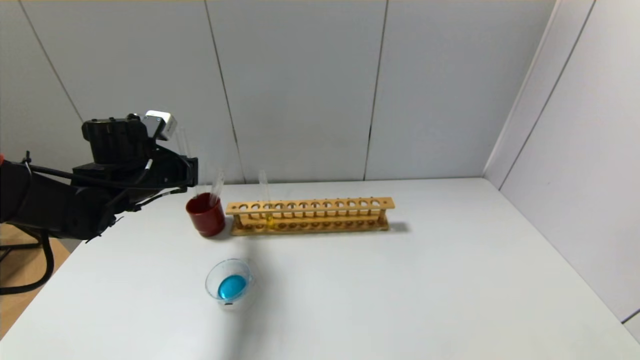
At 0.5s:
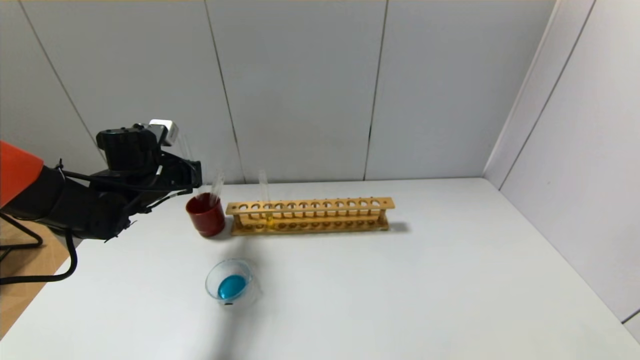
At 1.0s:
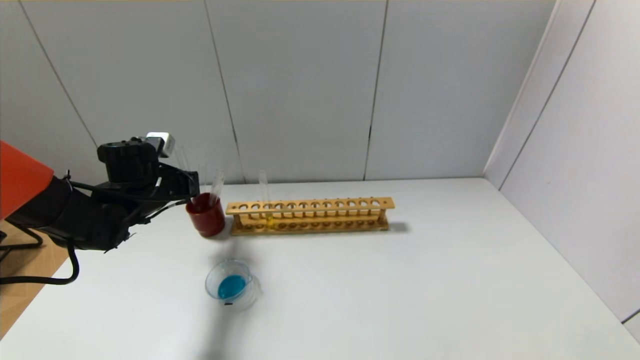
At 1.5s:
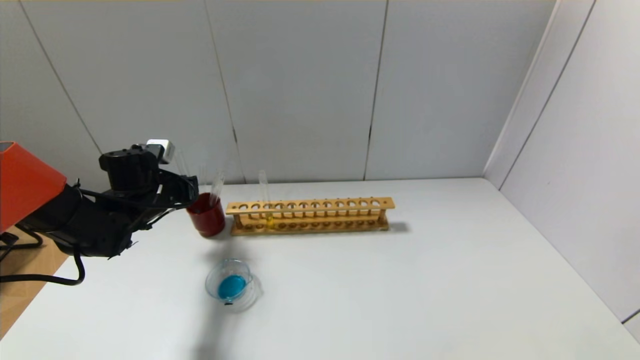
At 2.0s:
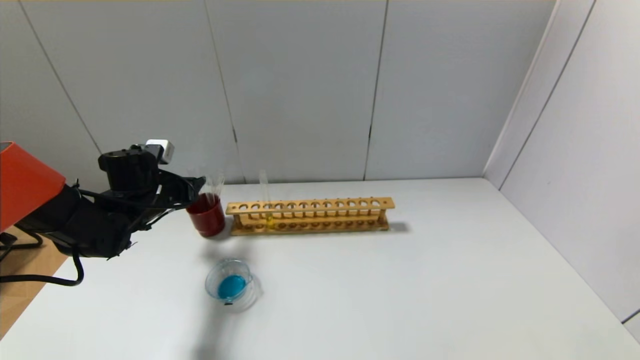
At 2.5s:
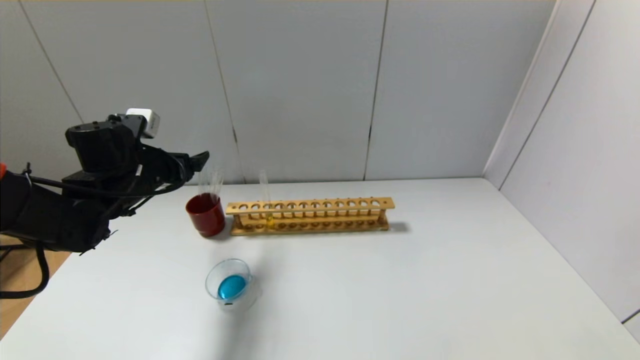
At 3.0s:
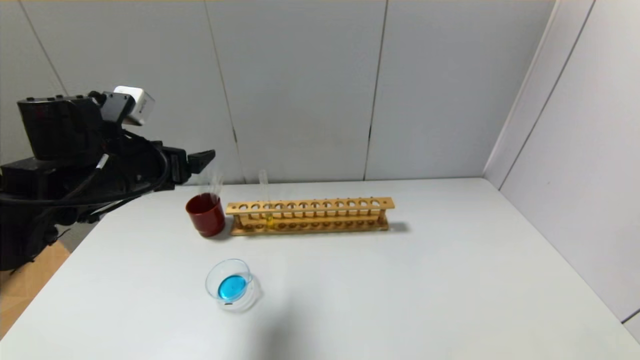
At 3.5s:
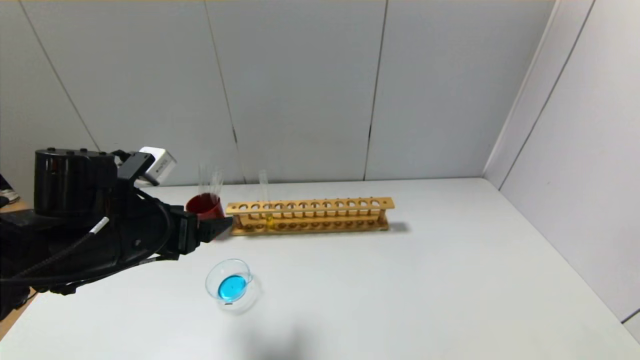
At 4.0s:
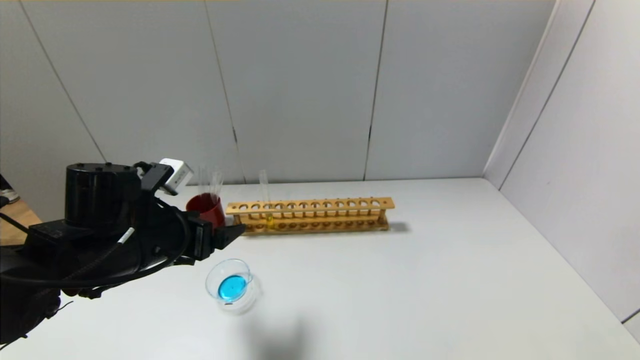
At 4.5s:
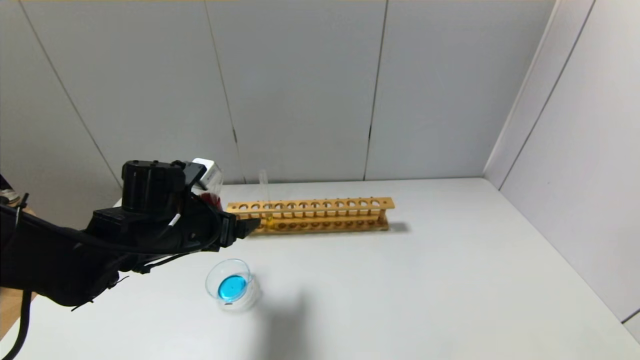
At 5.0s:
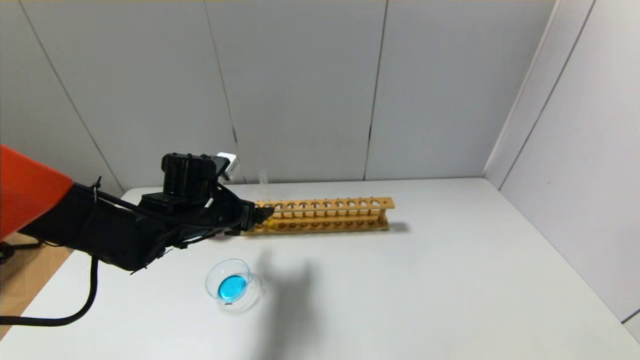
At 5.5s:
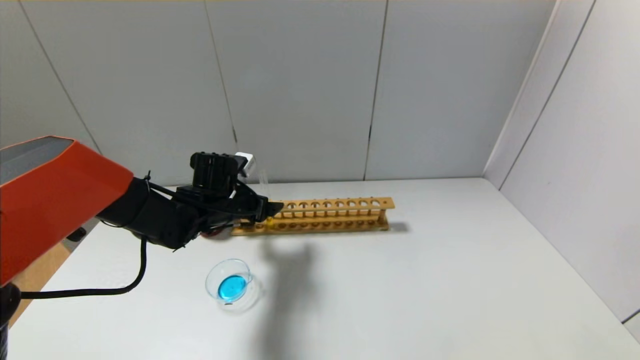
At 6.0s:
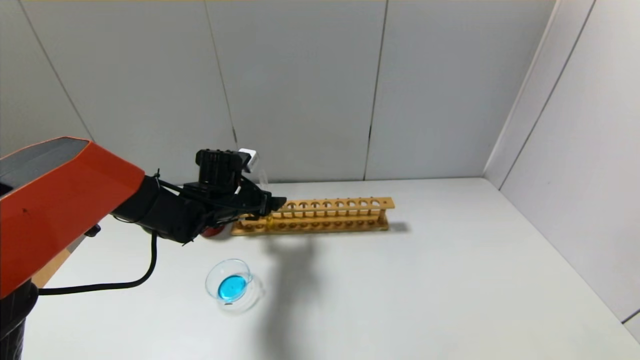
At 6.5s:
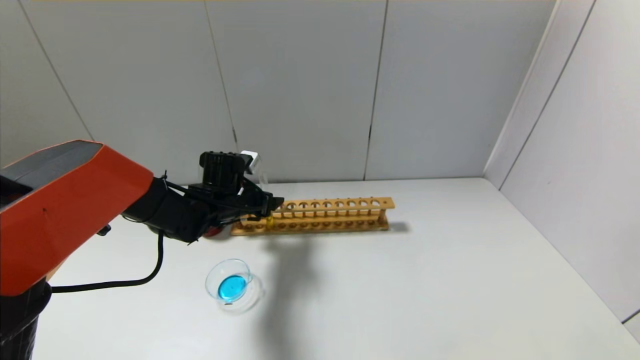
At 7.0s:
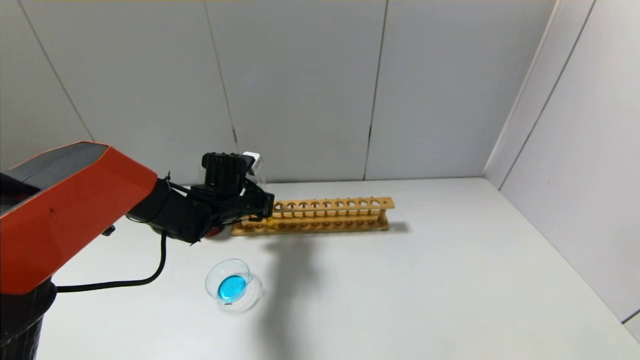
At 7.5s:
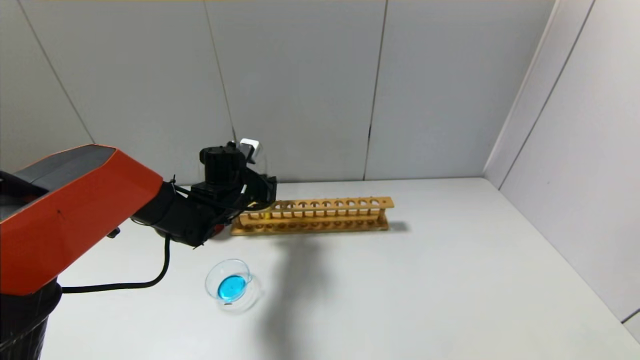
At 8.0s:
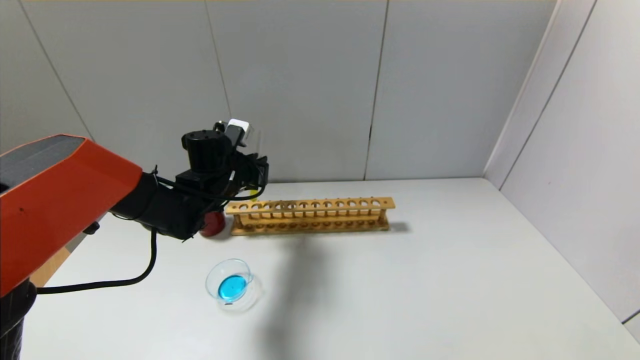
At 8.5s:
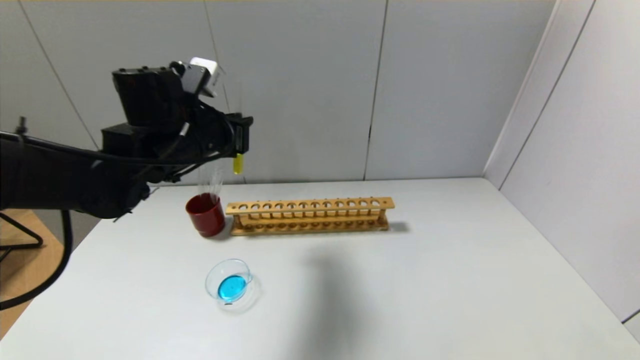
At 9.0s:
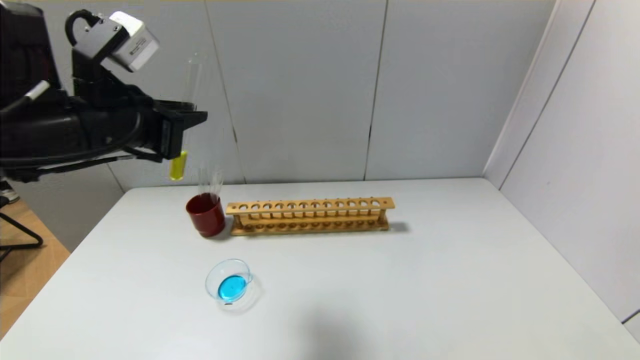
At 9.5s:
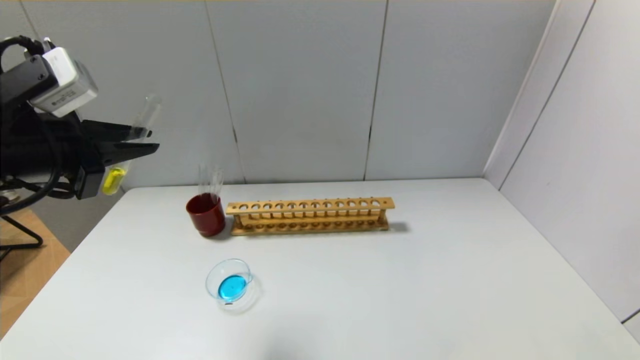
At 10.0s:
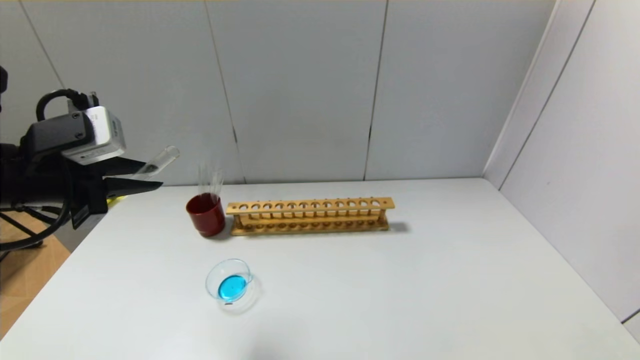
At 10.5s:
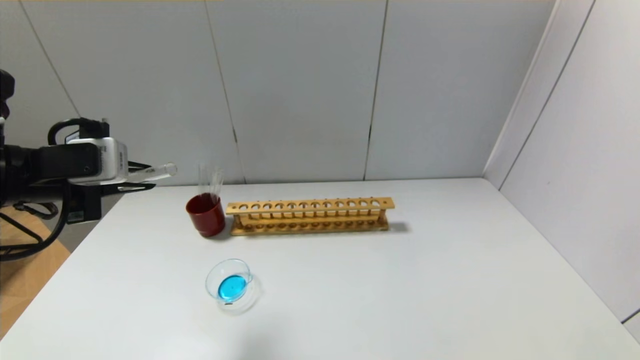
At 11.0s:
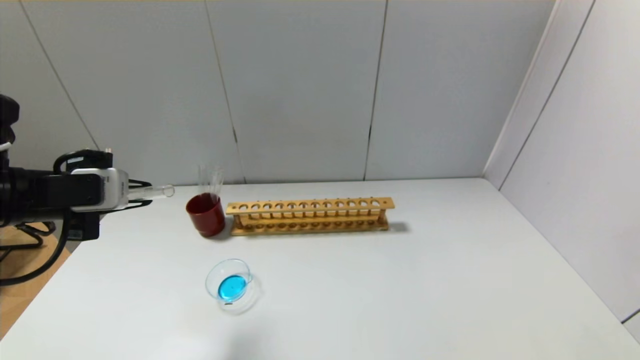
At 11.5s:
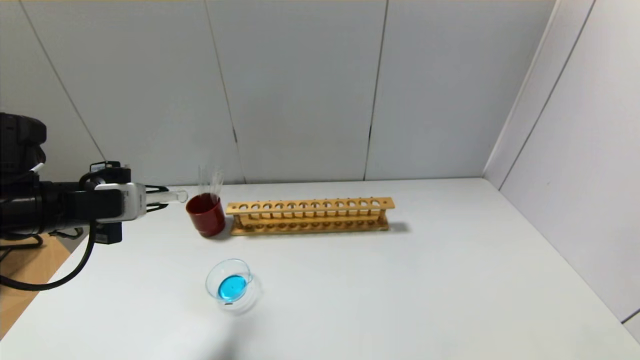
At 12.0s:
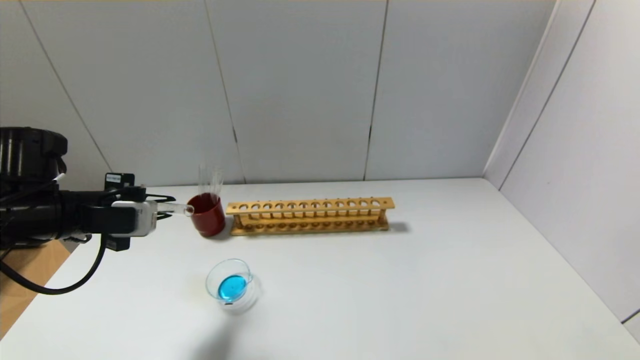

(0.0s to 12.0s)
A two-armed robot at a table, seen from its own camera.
Step, 0.0s - 2.0s: Place the test tube into the brown cup with the left gripper.
Step, 2.5s - 7.0s: Grasp the yellow reagent with the left gripper.
0.0s - 2.0s: The left gripper shifts roughly 5 cm downward, and opens.
2.0s - 4.0s: The left gripper shifts roughly 15 cm backward and to the right, and opens up.
4.0s - 6.0s: The left gripper goes roughly 15 cm forward.
6.0s - 8.0s: The left gripper closes its fingers.
8.0s - 10.0s: The left gripper is displaced backward, to the left and upward by some 25 cm.
10.0s - 12.0s: The left gripper is displaced downward by approximately 10 cm.

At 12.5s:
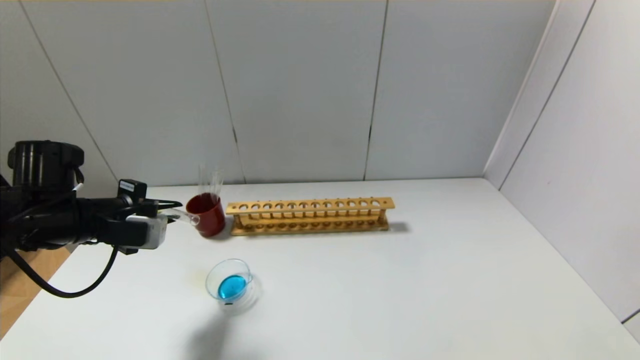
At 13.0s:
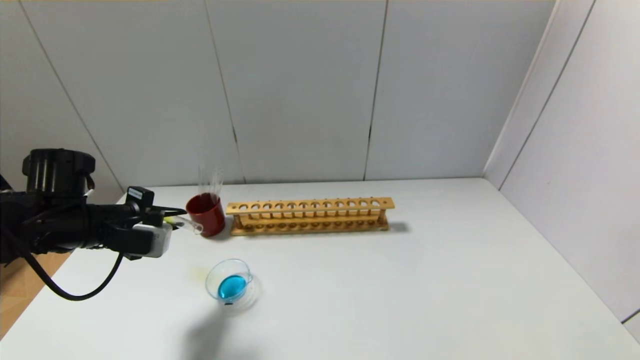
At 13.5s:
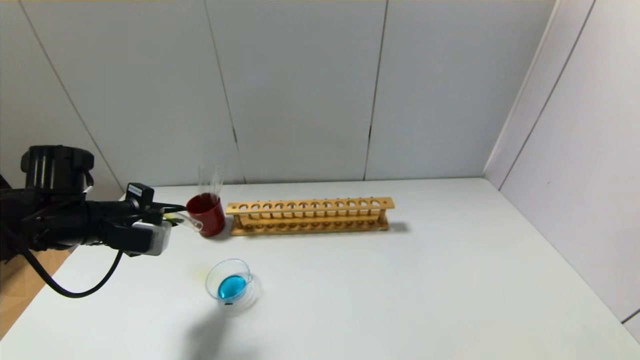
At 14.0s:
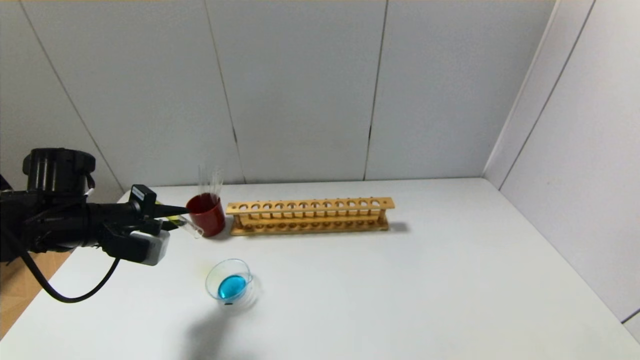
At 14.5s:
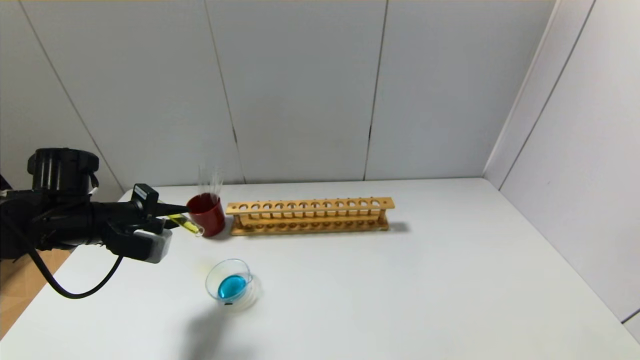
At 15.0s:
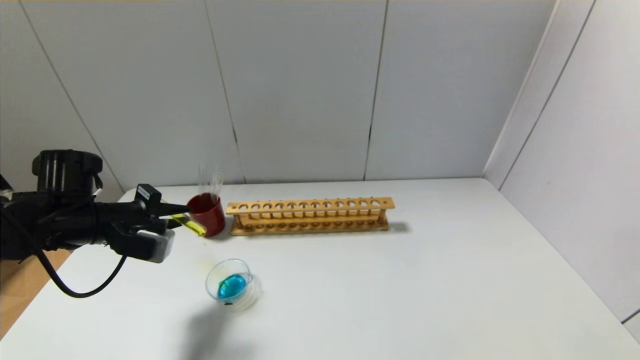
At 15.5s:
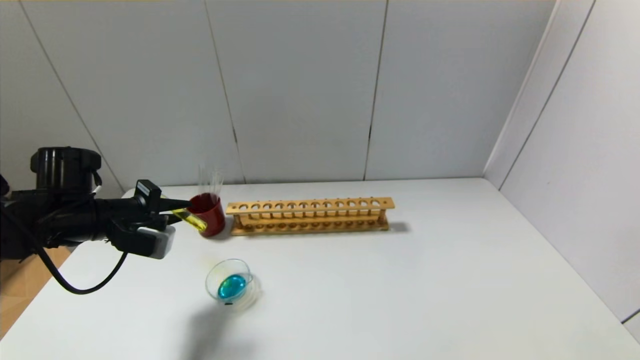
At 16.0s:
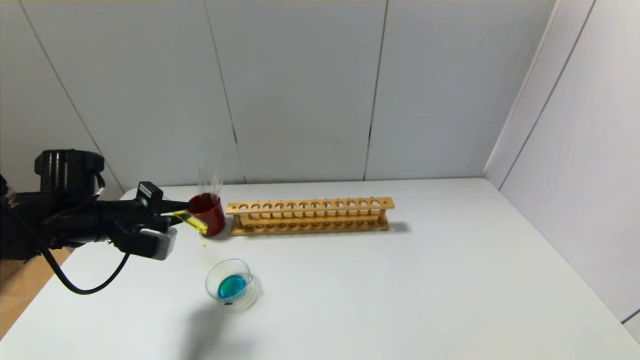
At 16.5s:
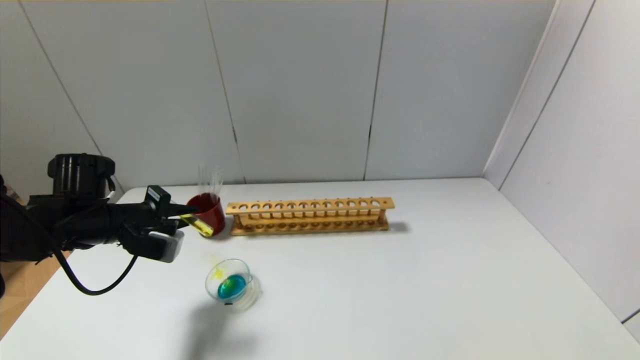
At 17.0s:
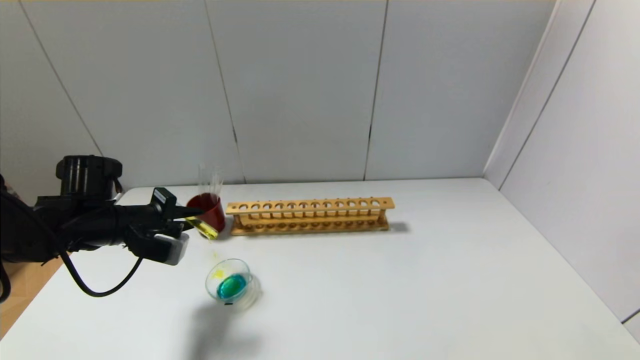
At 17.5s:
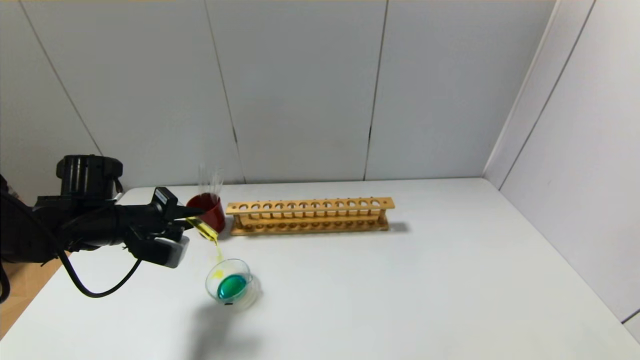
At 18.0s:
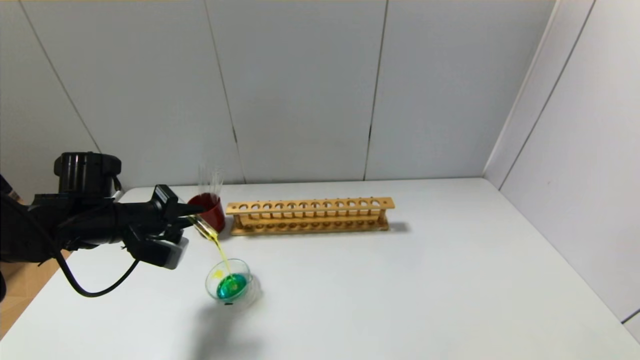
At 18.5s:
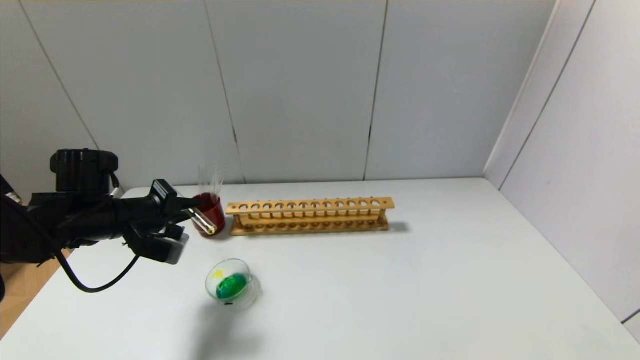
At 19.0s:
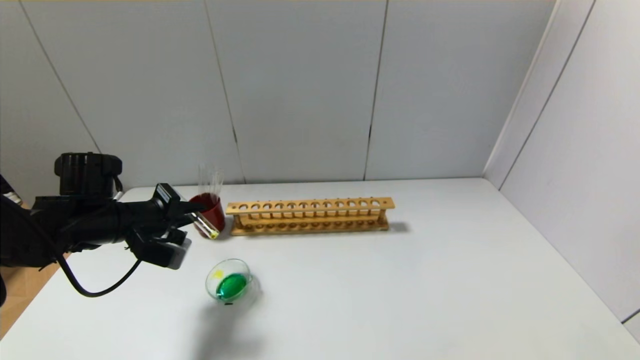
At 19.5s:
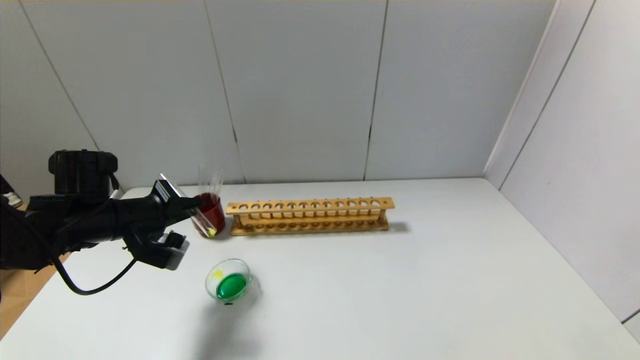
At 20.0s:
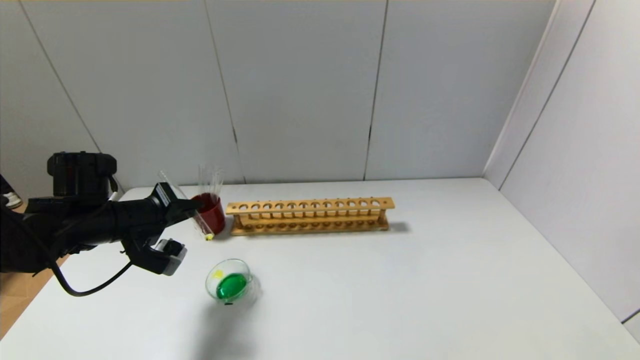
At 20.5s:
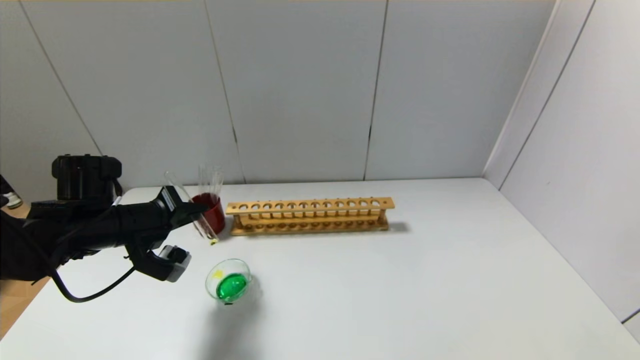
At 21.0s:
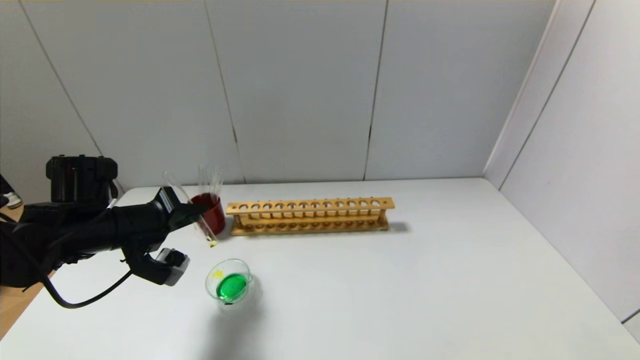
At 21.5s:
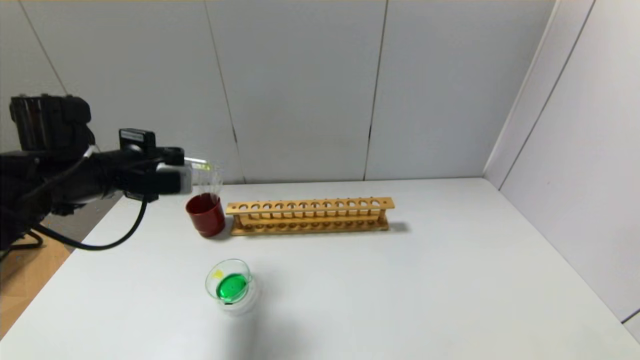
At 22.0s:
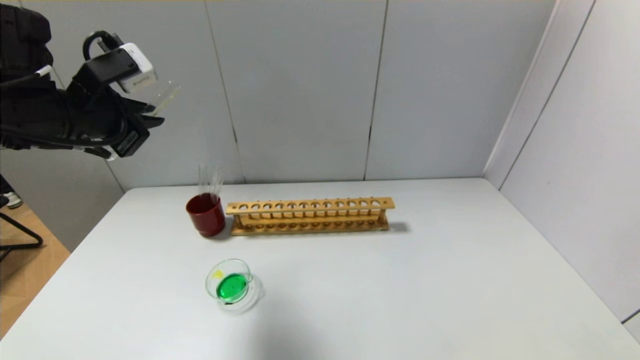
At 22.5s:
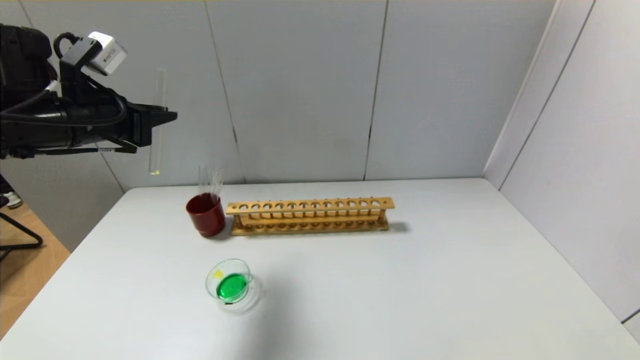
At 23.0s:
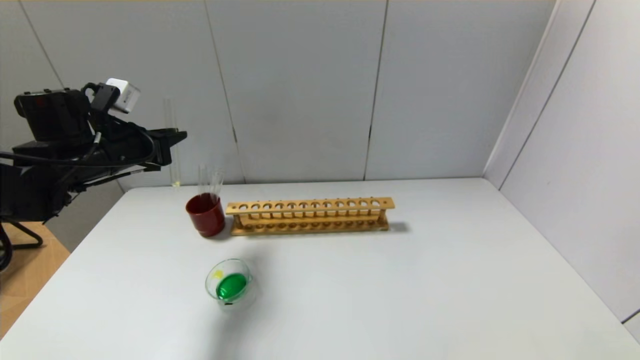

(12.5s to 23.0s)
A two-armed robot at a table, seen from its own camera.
Step, 12.5s - 21.0s: Pour the yellow reagent into the graduated cylinder with the left gripper.
12.5s - 16.5s: There are only small adjustments of the grippers.
16.5s - 19.0s: The grippers move only a little.
19.0s - 21.0s: The grippers stay close to where they were, moving slightly.
21.0s - 23.0s: The left gripper shifts roughly 10 cm upward and forward.
